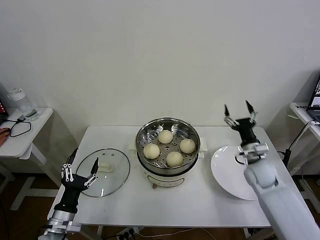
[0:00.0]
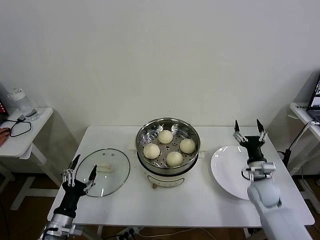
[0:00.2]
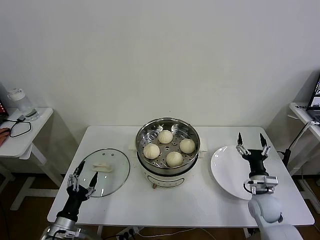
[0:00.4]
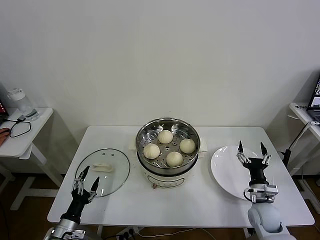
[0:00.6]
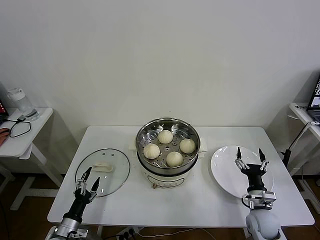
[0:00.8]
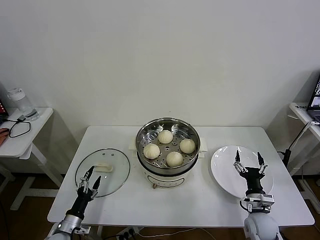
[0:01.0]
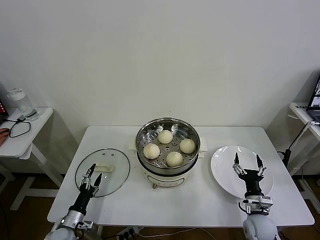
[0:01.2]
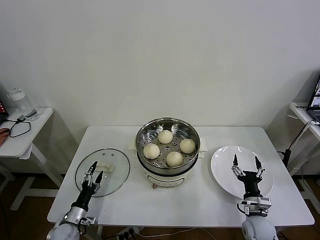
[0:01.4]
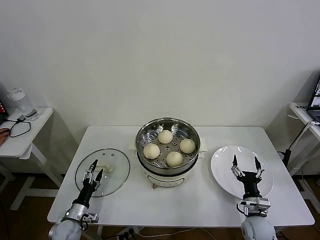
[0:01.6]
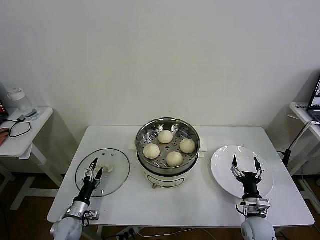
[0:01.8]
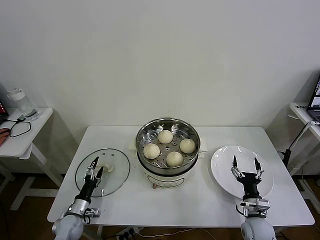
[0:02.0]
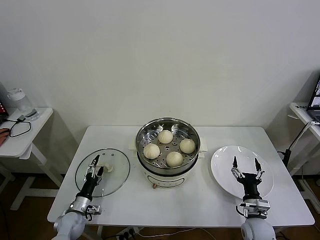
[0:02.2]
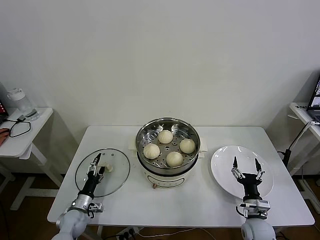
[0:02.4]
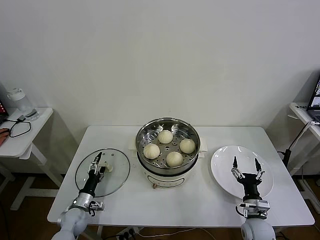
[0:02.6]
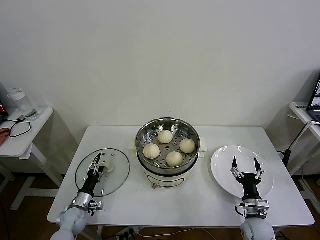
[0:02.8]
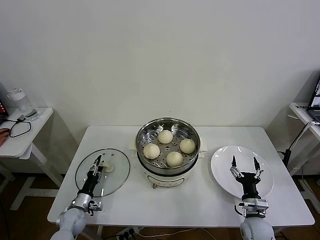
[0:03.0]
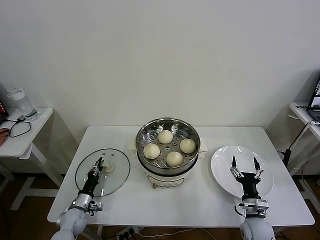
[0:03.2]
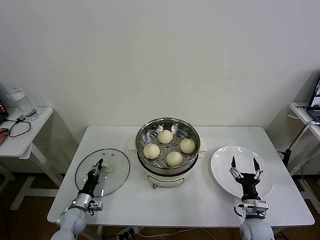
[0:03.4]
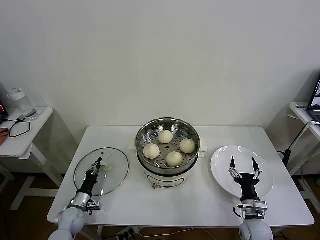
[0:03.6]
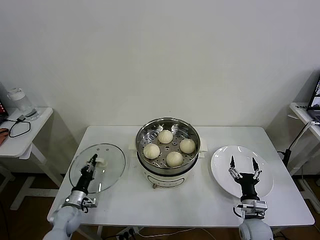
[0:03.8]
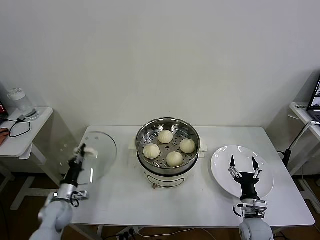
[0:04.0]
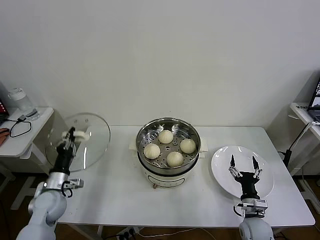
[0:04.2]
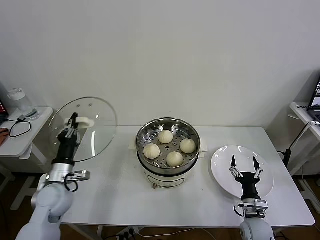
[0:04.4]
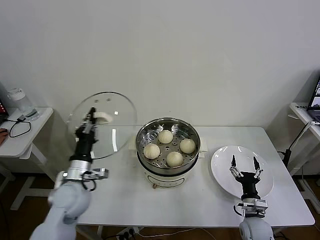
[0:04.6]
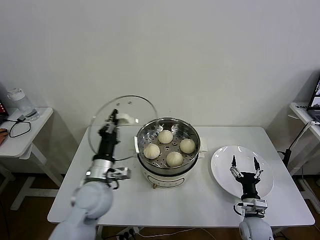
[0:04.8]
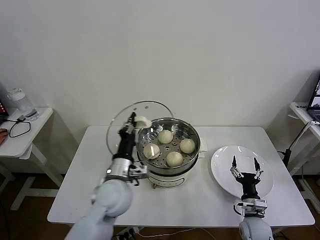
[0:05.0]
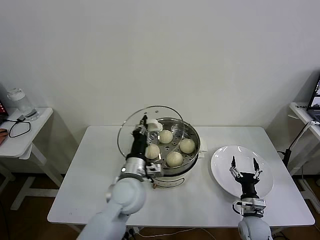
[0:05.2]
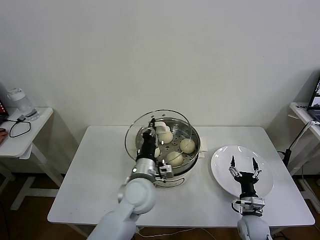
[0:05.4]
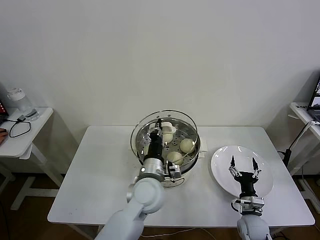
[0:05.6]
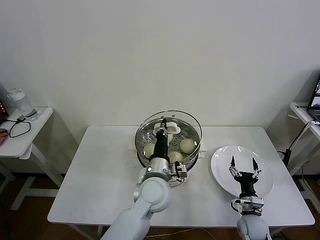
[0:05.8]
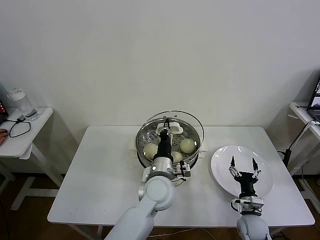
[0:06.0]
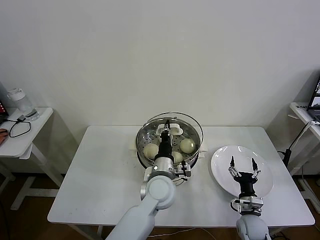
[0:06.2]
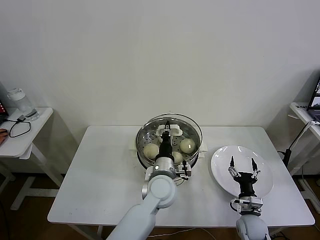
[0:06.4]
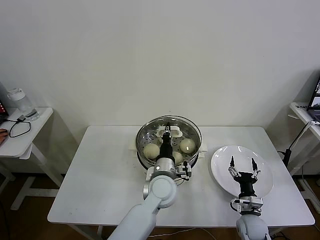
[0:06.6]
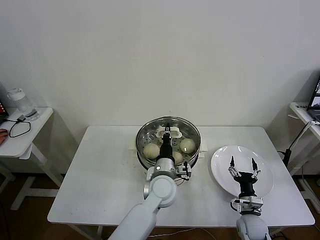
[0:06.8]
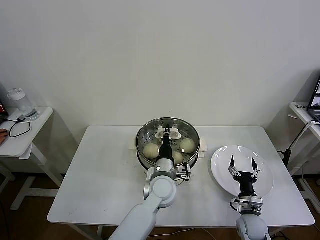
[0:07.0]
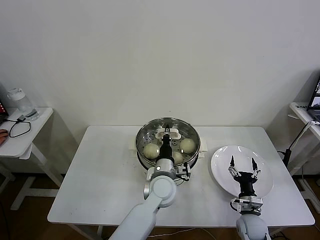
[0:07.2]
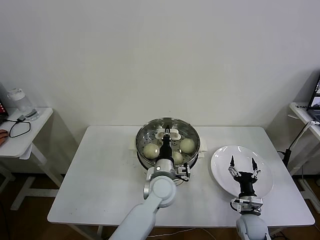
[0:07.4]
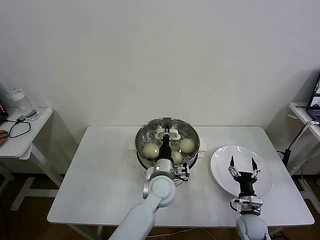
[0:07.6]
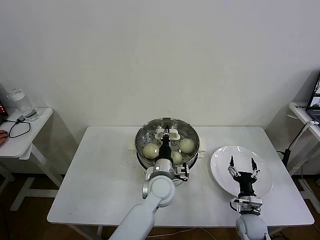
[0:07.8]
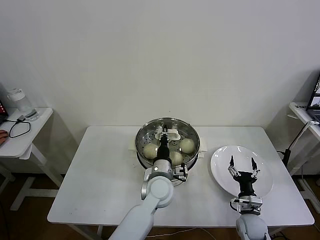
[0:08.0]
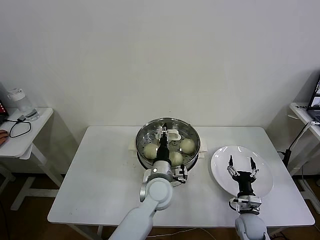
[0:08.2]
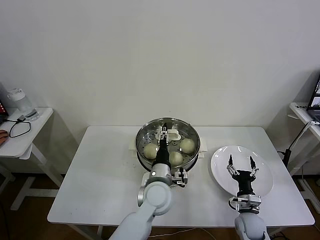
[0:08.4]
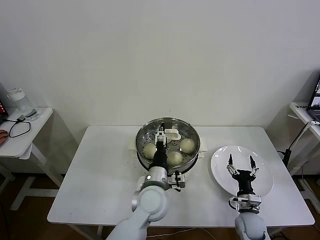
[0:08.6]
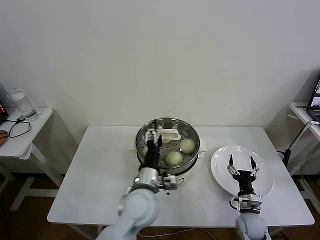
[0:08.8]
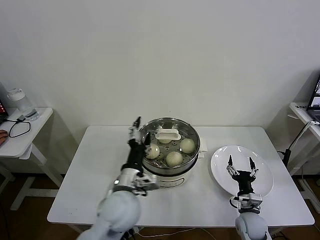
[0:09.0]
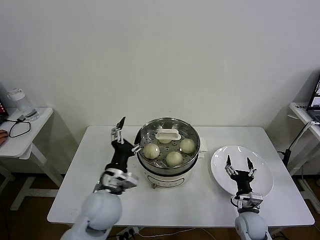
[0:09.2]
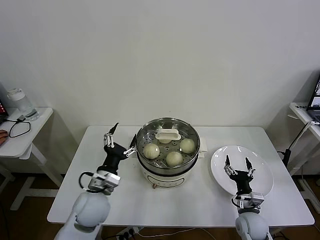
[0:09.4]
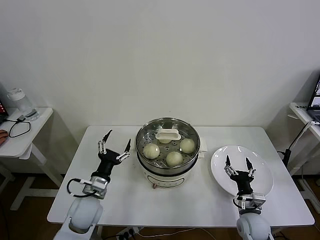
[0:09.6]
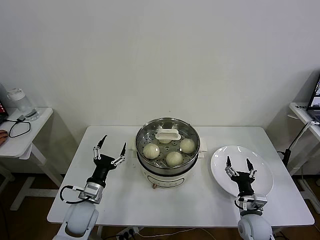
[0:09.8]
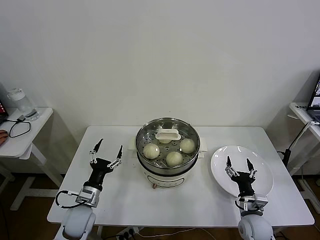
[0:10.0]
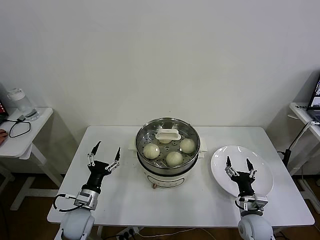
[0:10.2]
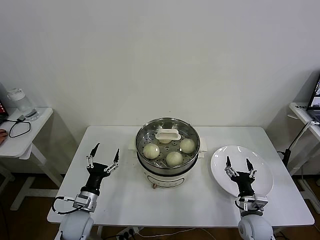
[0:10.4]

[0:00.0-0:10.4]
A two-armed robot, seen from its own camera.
Task of the whole recording: take steamed baozi put them in steamer then cover it.
Step, 0:00.0 to 0:03.4: Grasp the pot lid with left gripper.
Step, 0:03.6 to 0:08.4: Place the pot lid on the steamer with left gripper.
0:00.0 to 0:01.4: The left gripper is displaced downward and forward by some 15 cm, while the right gripper shifts some 20 cm backward and downward.
0:01.4 to 0:03.0: The left gripper is displaced forward by about 5 cm, and closes.
0:03.0 to 0:04.4: The left gripper heads upward, covering approximately 20 cm, and closes.
0:04.4 to 0:06.0: The left gripper is displaced to the right by about 30 cm.
0:06.0 to 0:07.4: The grippers make only small movements.
0:07.4 to 0:09.0: The left gripper heads to the left, backward and upward, covering roughly 15 cm, and opens.
0:09.0 to 0:10.4: The left gripper shifts roughly 25 cm to the left and downward.
